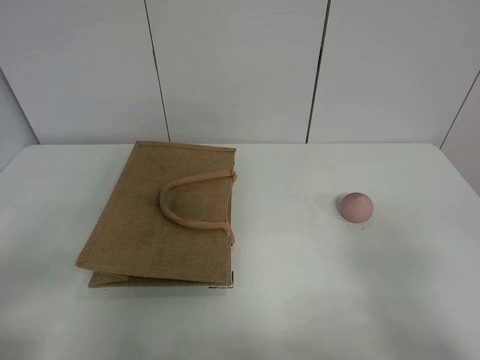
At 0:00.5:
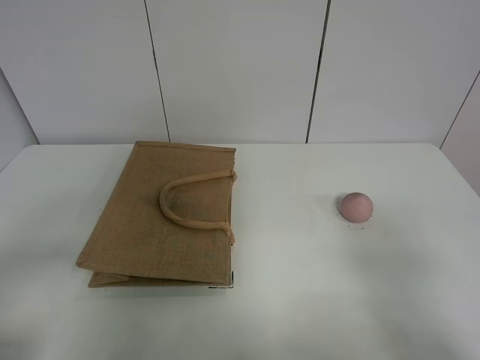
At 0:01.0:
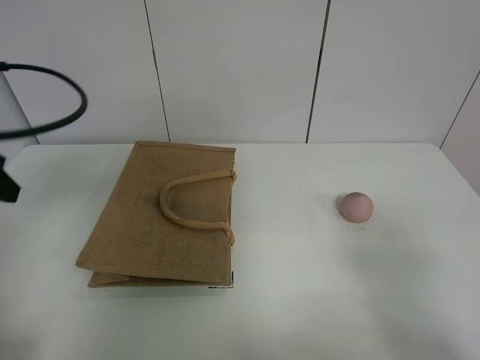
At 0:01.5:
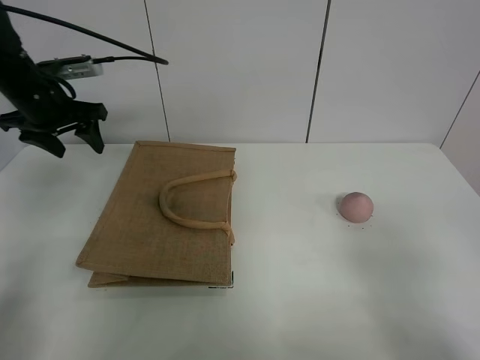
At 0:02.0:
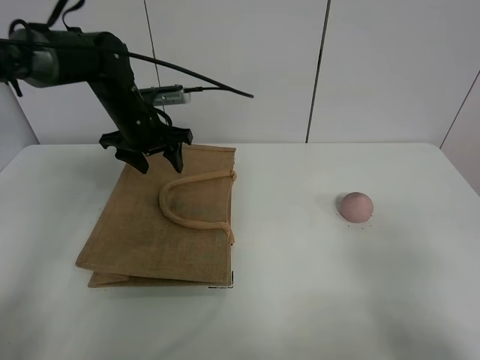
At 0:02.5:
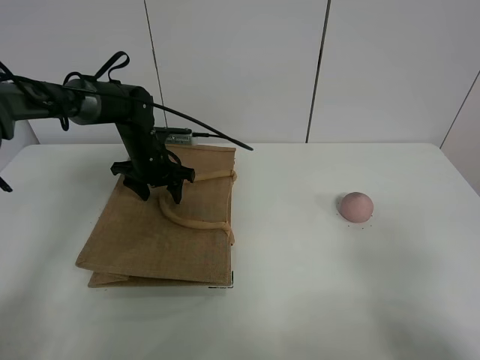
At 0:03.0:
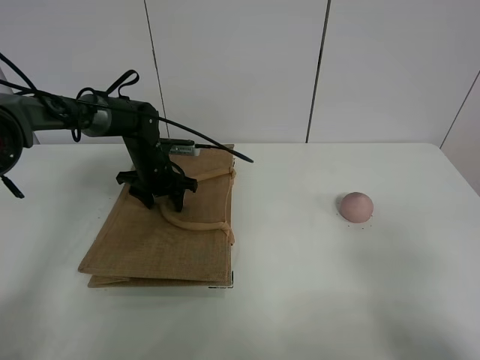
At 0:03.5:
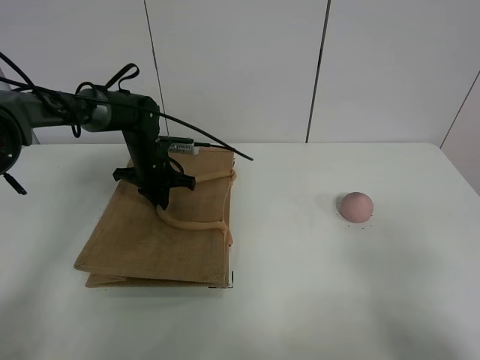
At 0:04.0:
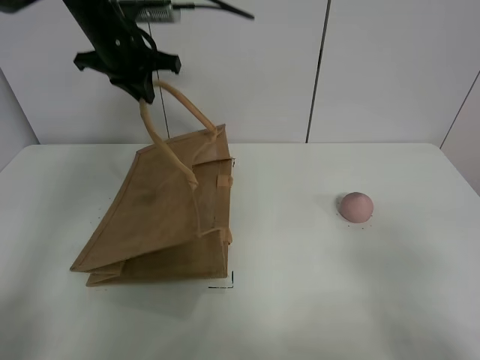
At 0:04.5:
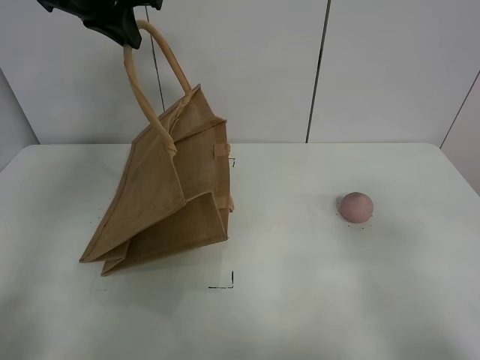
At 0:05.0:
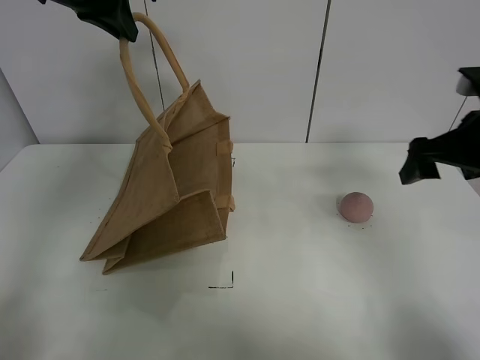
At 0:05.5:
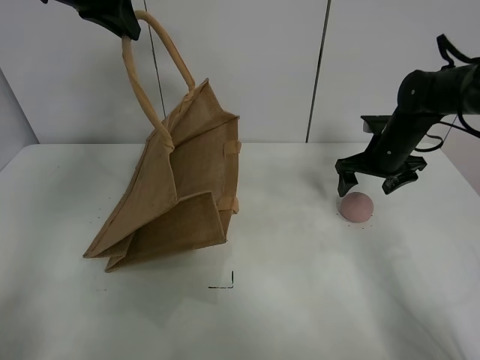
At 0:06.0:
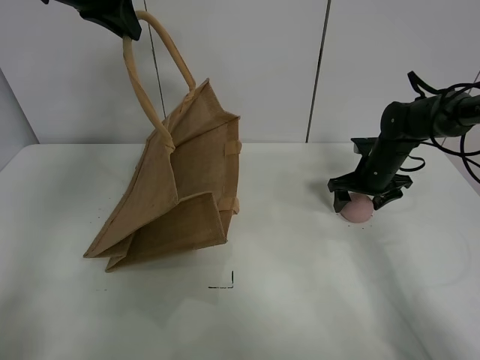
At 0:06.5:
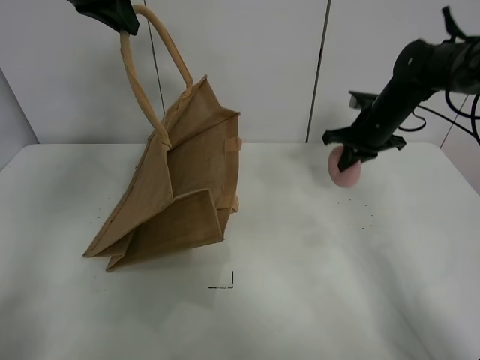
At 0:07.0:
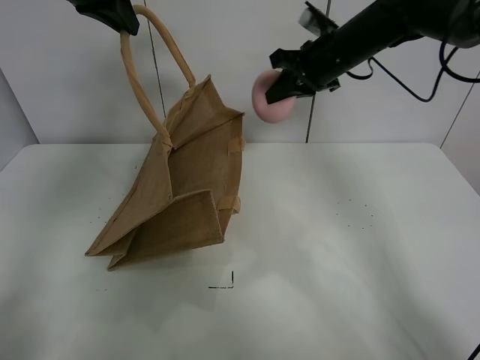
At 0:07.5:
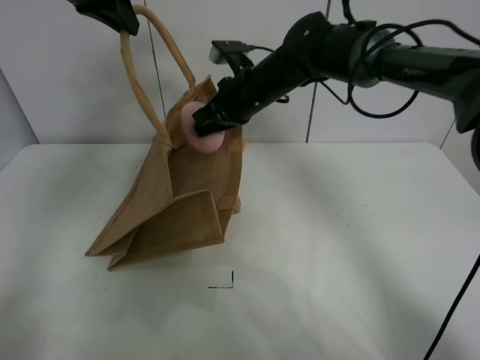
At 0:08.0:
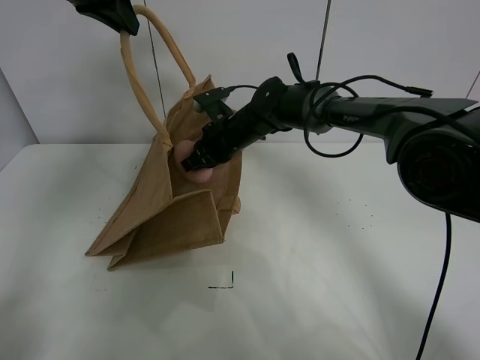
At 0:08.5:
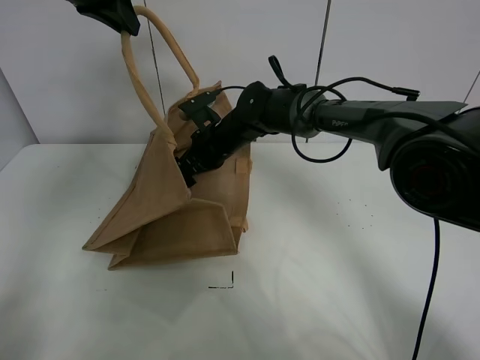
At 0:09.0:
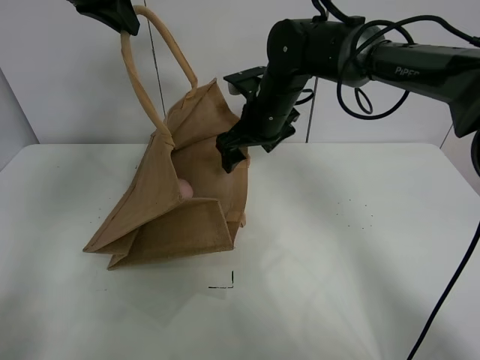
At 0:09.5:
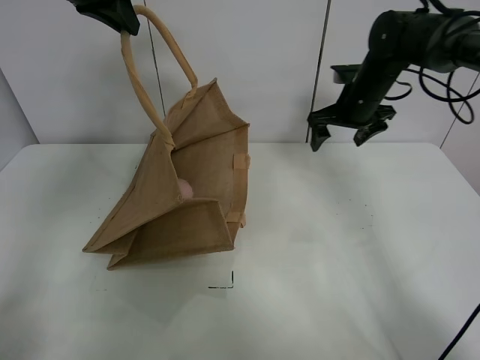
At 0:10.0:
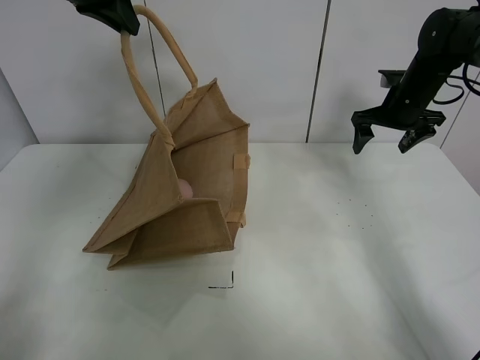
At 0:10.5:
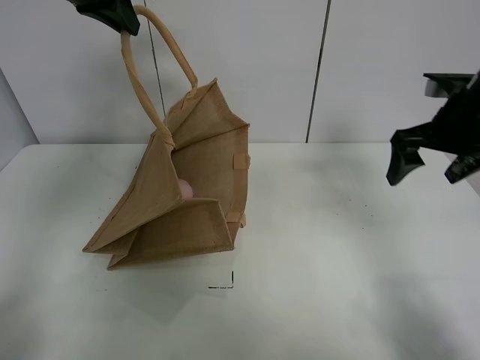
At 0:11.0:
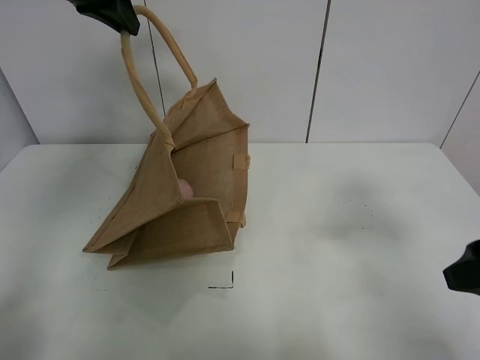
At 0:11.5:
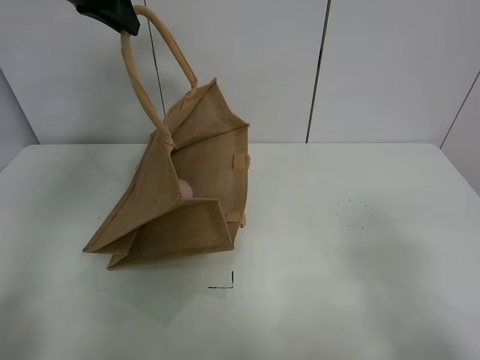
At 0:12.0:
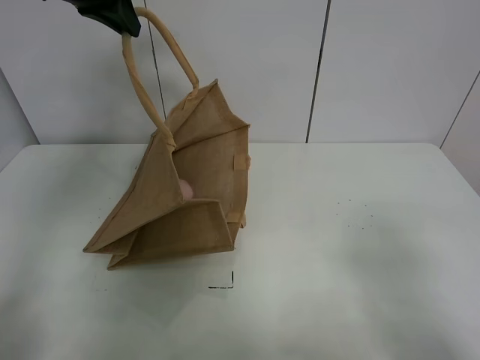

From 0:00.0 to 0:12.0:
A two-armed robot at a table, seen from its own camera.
Task of the whole recording: open the brown linen bag and put the peach in the bag.
Step, from 0:00.0 to 0:04.5: Lift the handbag with left gripper.
Step, from 0:05.0 to 0:06.0: Grasp the peach with right gripper.
Step, from 0:06.5 to 0:09.0: Place the peach in the handbag with right gripper.
From 0:00.0 to 0:02.0: The left gripper heads forward, covering some 40 cm.
From 0:02.0 to 0:04.0: The left gripper shifts approximately 15 cm upward, and closes up.
From 0:04.0 to 0:06.0: The right gripper goes approximately 40 cm forward. Meanwhile the left gripper travels upward by some 10 cm.
From 0:06.0 to 0:08.0: The right gripper shifts approximately 25 cm to the left, and closes.
From 0:08.0 to 0:10.0: The right gripper heads to the right, covering roughly 30 cm, and opens up.
From 0:10.0 to 0:12.0: The right gripper moves backward, about 50 cm.

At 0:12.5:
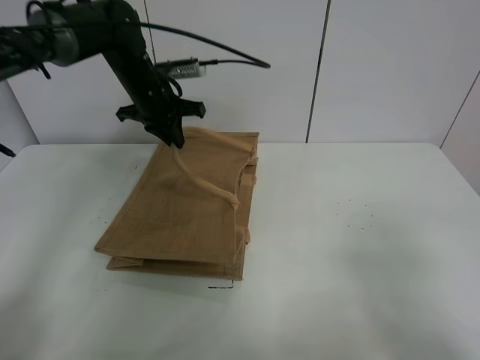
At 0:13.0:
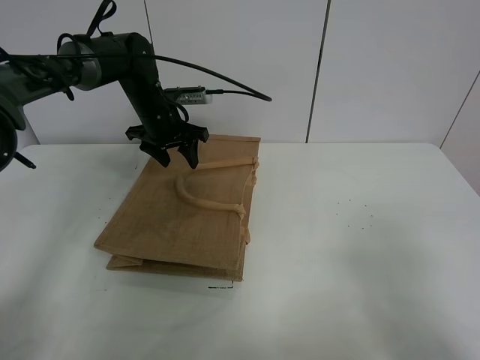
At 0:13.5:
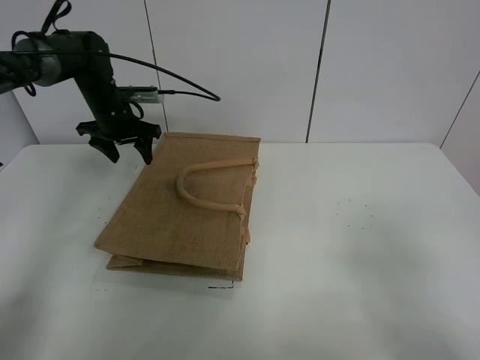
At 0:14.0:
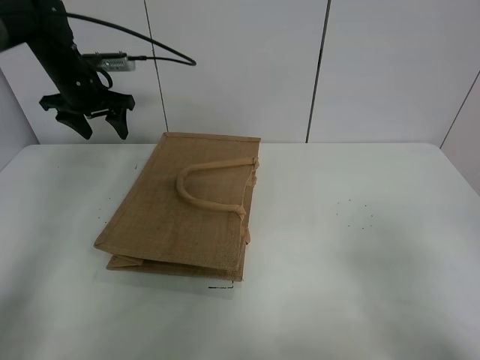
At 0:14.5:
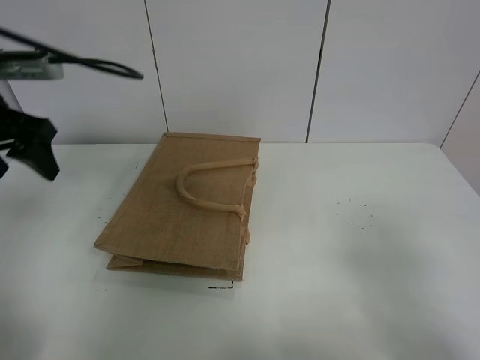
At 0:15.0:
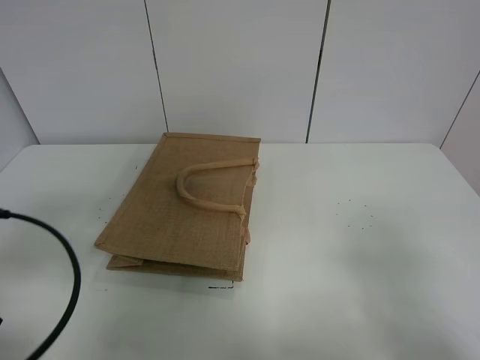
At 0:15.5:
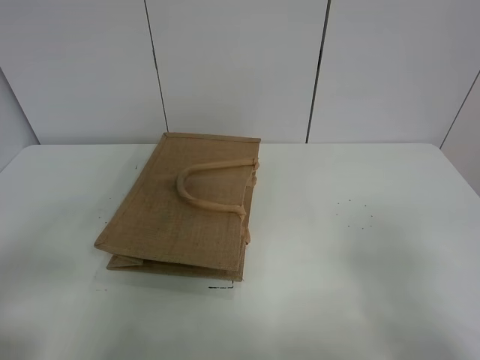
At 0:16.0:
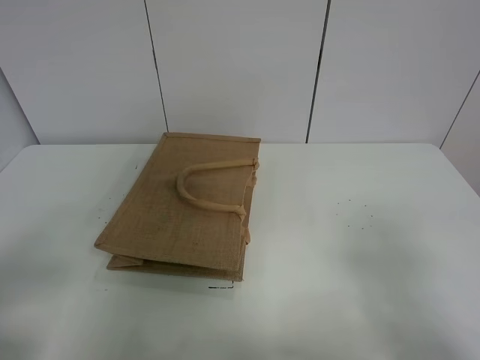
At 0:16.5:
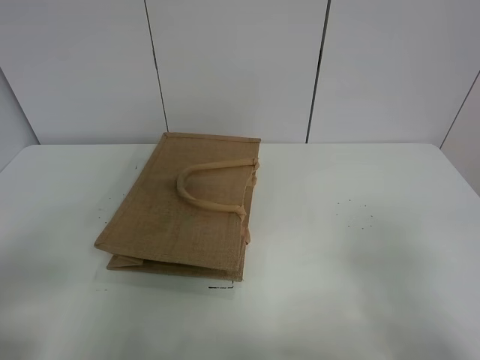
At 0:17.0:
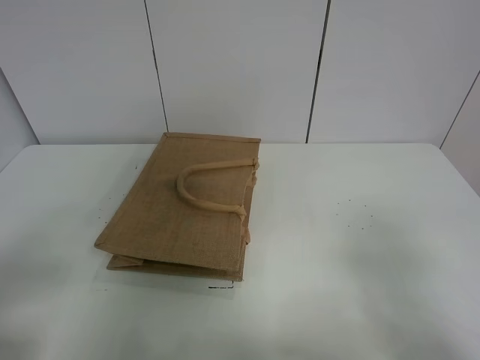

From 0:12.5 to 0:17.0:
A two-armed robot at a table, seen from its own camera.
Task of the whole recording: open the brown linen bag and put the peach in the bag.
From 0:12.5 to 0:14.5: The left gripper is displaced backward, to the left and upward by approximately 25 cm, and opens up.
From 0:14.5 to 0:17.0: The left gripper shifts some 25 cm backward.
